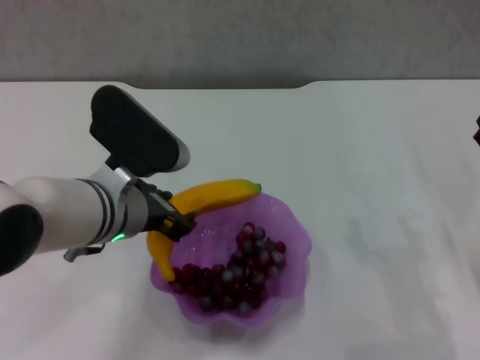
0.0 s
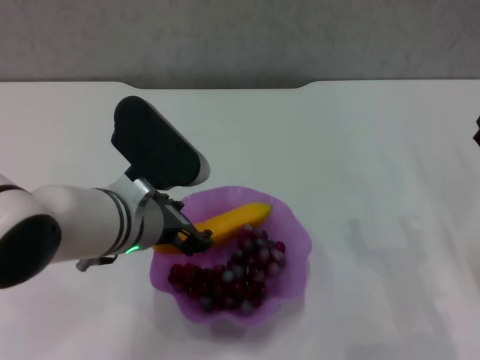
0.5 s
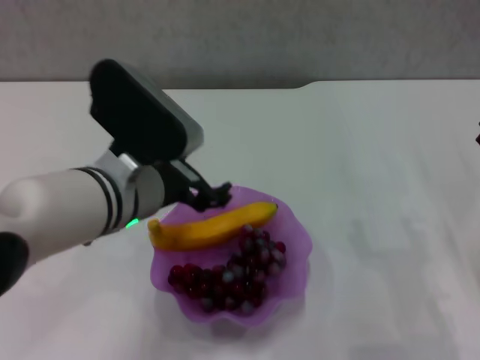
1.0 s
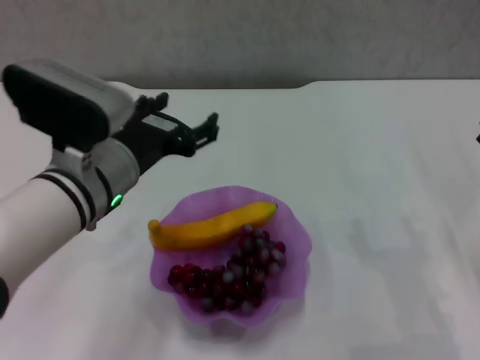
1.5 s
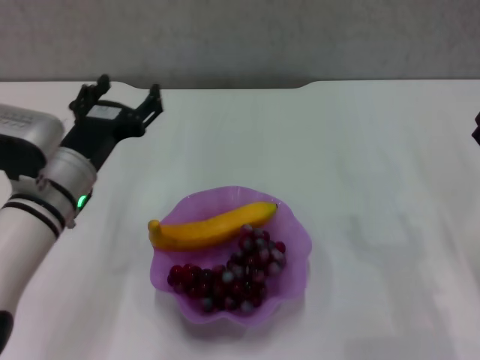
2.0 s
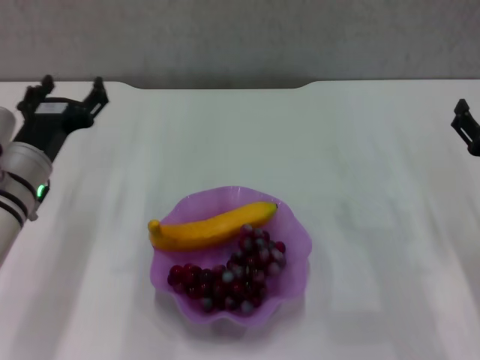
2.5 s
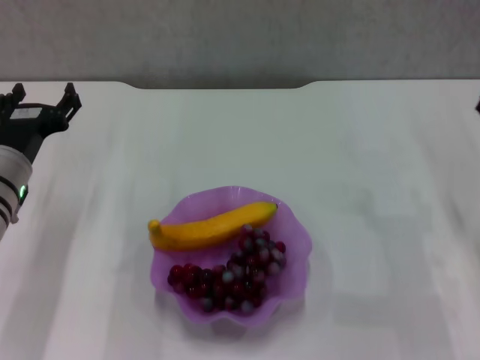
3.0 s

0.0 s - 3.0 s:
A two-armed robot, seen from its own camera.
0.0 s - 1.5 s: The left gripper opens.
1.5 s - 3.0 s: The left gripper shifts about 15 cm to the left and downward. Meanwhile the right gripper goes roughly 5 cm forward.

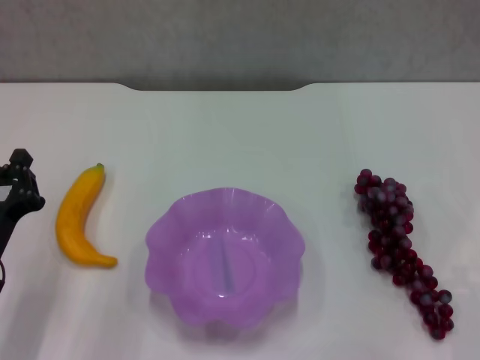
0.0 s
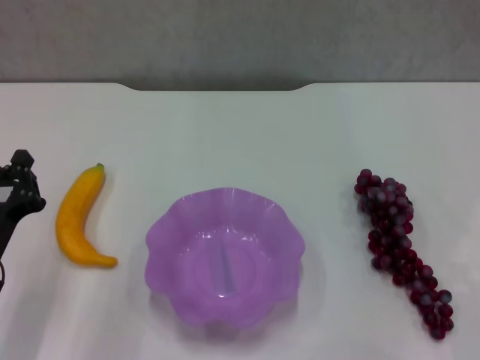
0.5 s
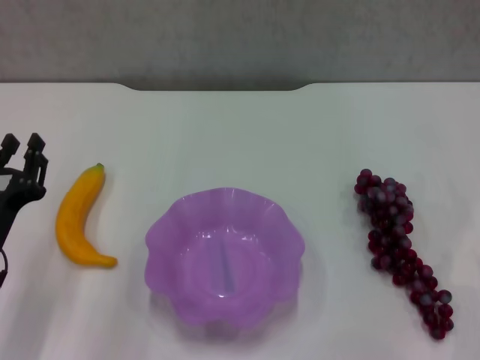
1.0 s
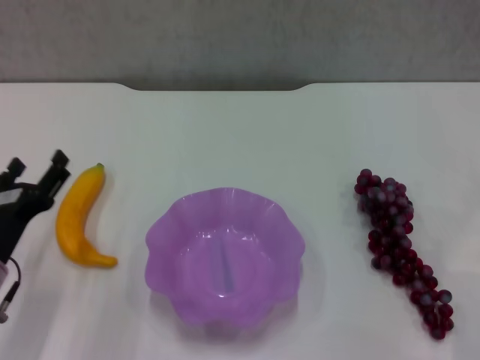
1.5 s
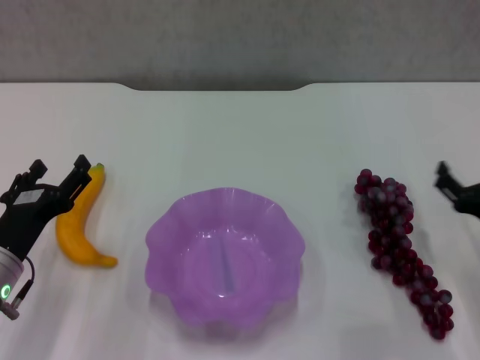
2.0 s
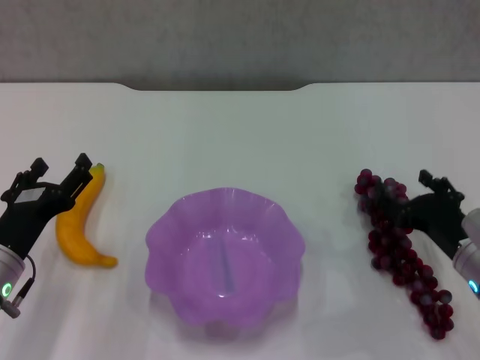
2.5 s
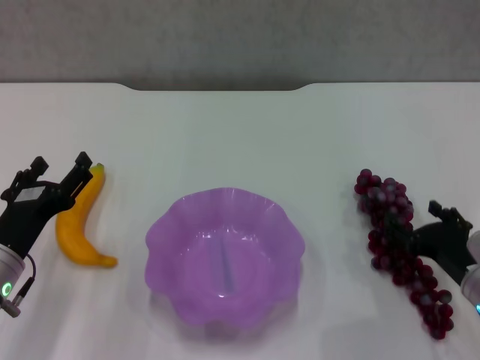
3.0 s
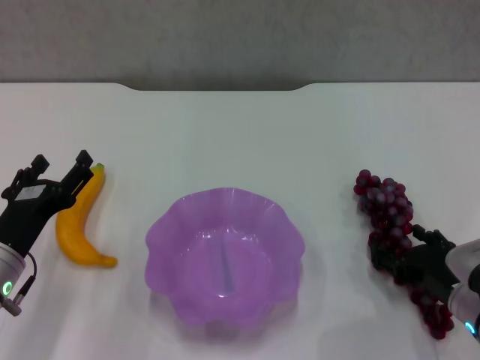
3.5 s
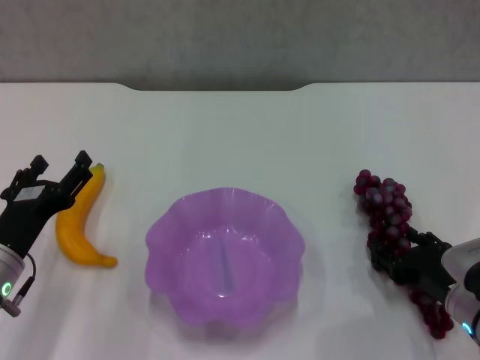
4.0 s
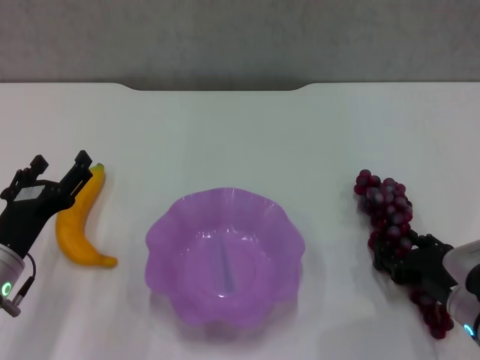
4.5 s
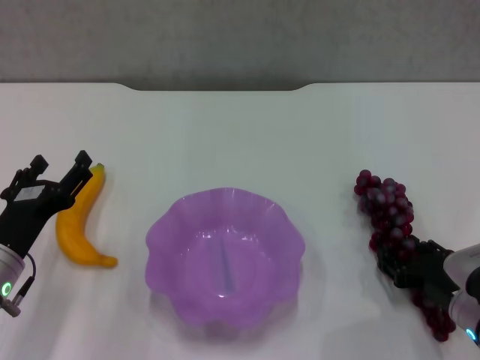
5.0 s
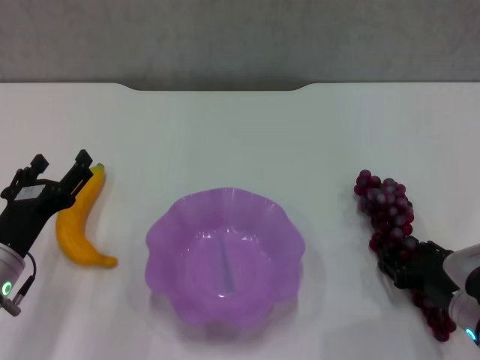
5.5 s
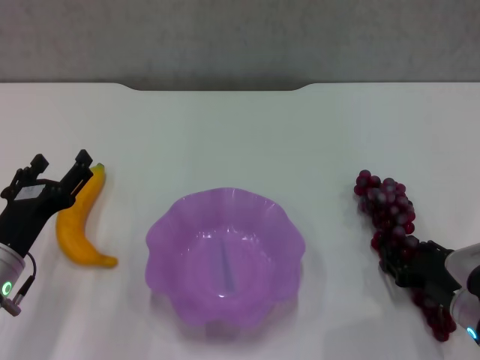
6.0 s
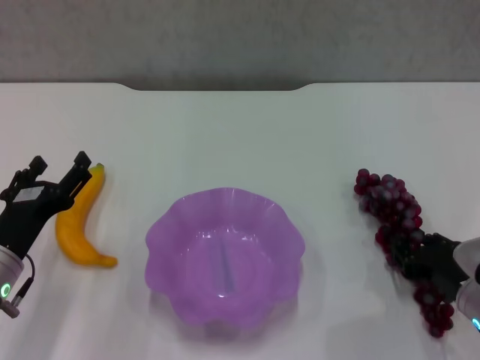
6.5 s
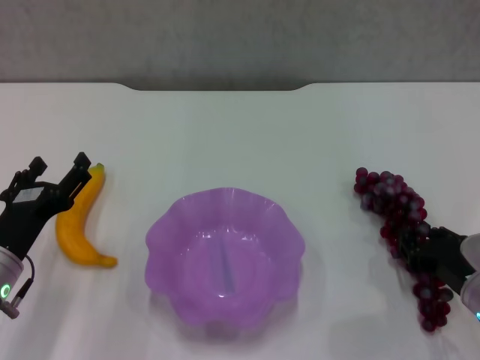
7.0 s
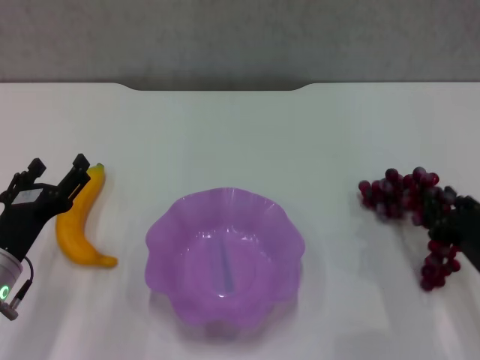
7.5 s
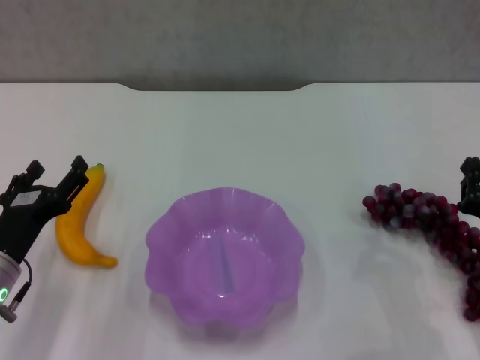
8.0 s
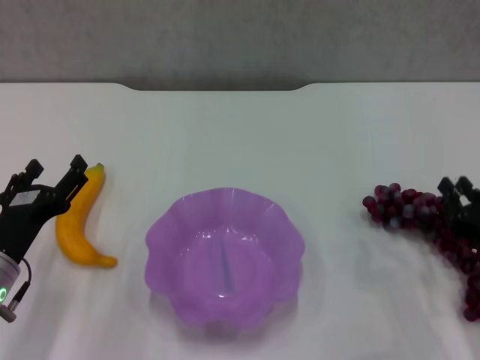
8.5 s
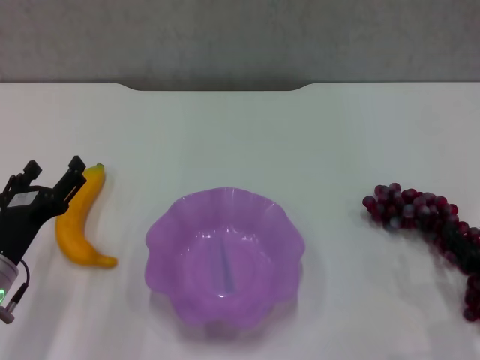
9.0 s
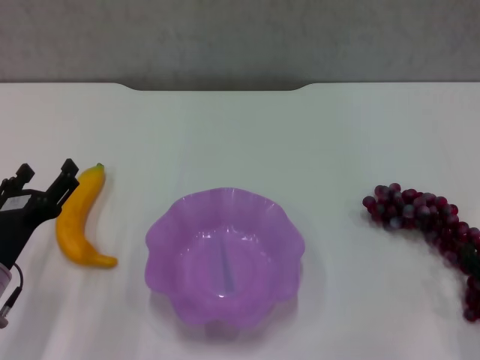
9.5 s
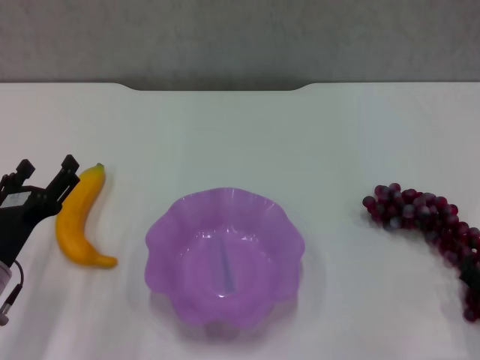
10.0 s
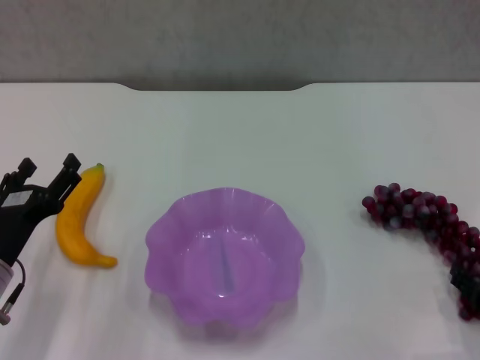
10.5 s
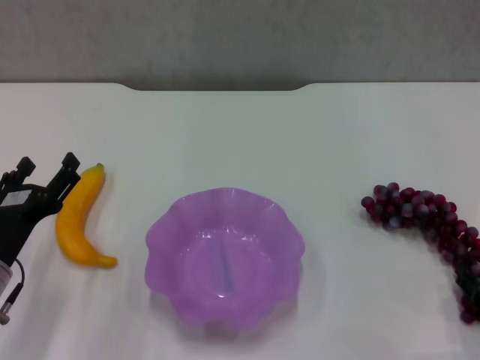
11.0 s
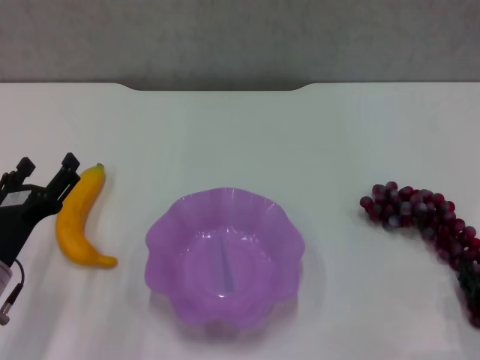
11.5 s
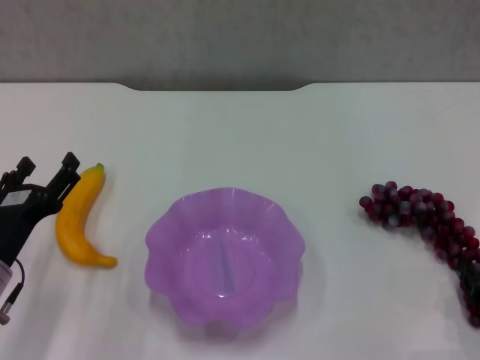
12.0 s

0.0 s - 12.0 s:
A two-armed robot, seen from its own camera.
0.0 s - 2.0 s: The right gripper heads forward, covering approximately 5 cm, and opens, while the left gripper opens.
2.0 s - 4.0 s: The right gripper shifts by some 5 cm.
4.0 s - 6.0 s: Neither gripper changes place.
6.0 s - 8.0 s: The right gripper moves approximately 5 cm, and closes up.
8.0 s - 10.0 s: The right gripper heads downward, covering about 5 cm, and opens its fingers.
10.0 s - 12.0 s: The right gripper closes.

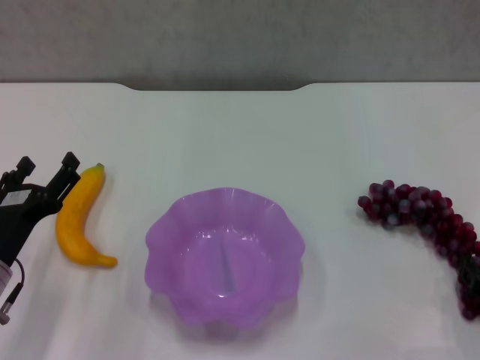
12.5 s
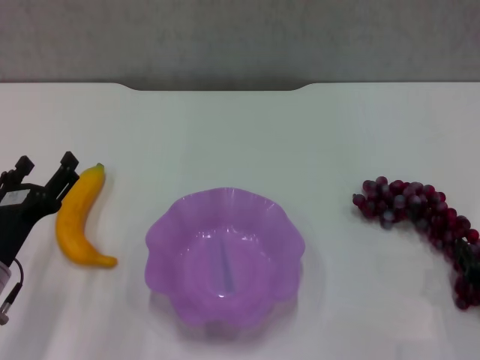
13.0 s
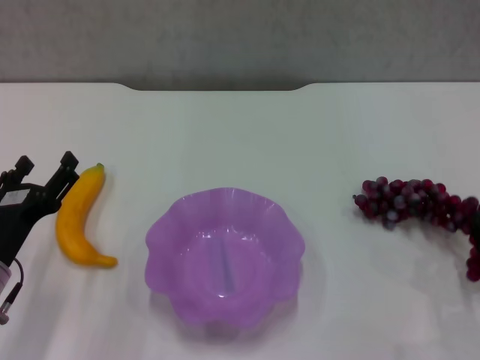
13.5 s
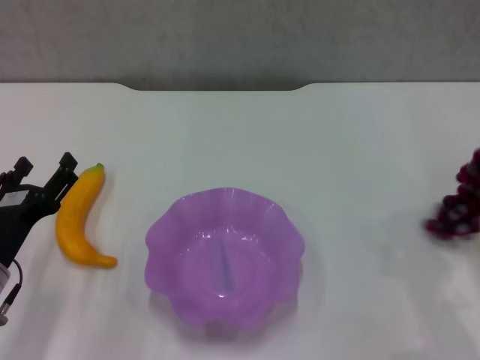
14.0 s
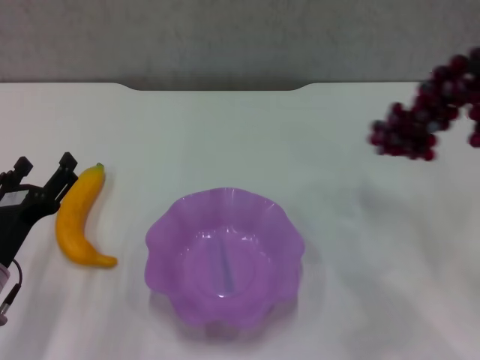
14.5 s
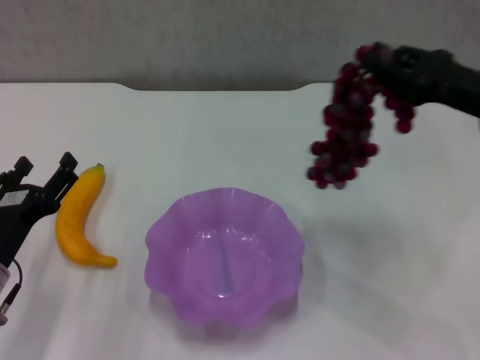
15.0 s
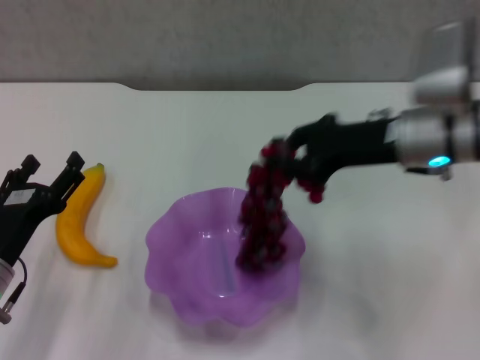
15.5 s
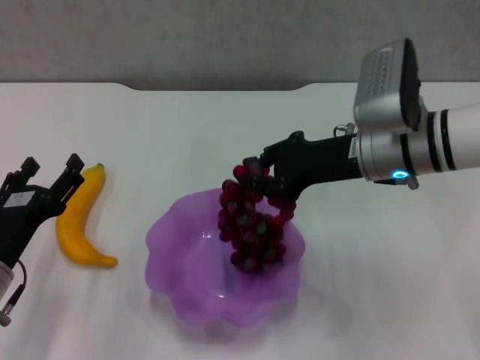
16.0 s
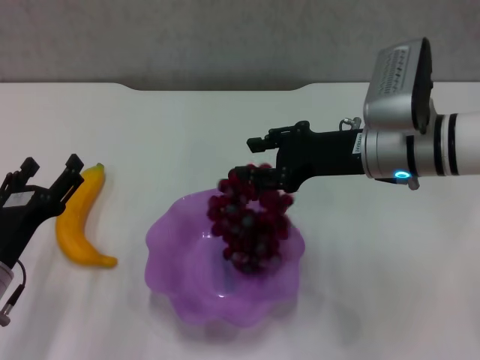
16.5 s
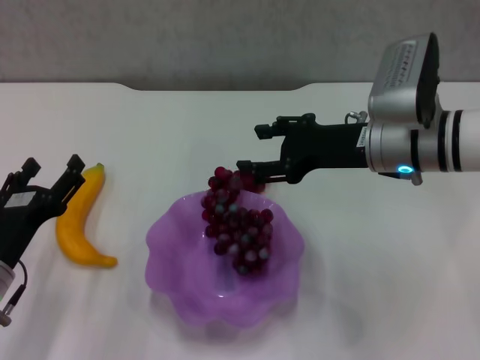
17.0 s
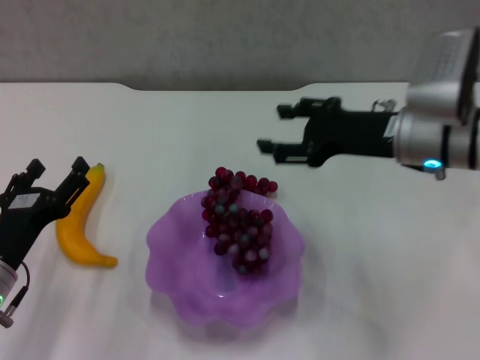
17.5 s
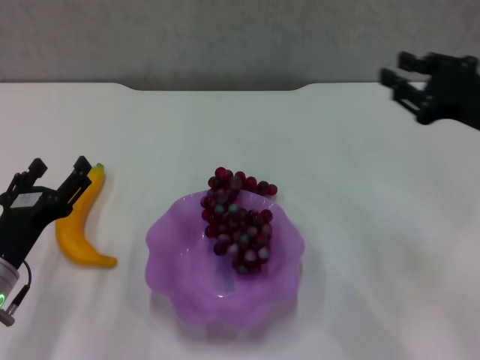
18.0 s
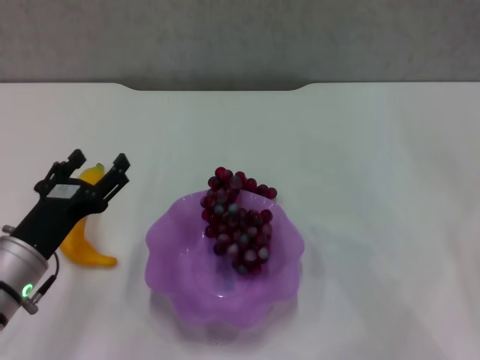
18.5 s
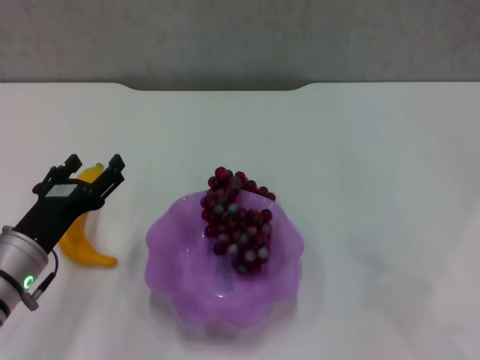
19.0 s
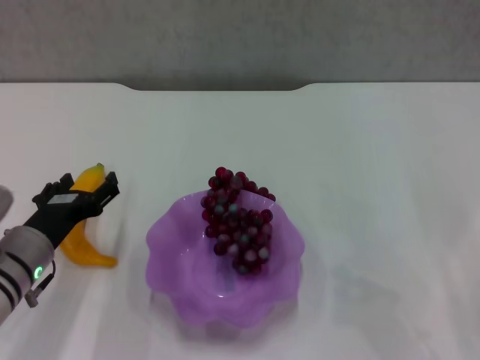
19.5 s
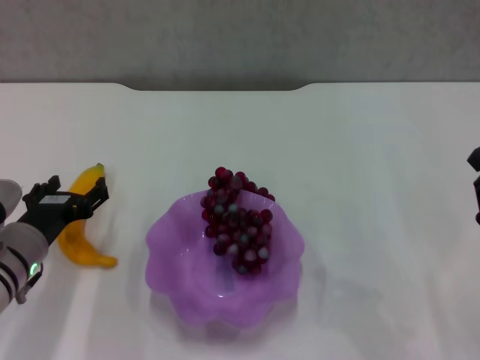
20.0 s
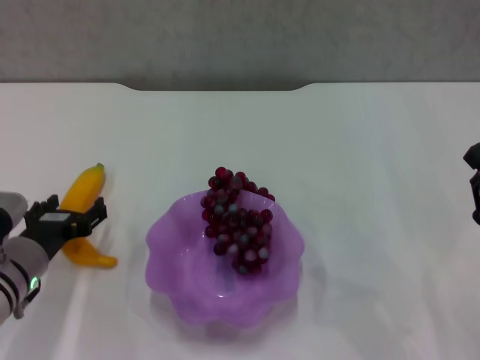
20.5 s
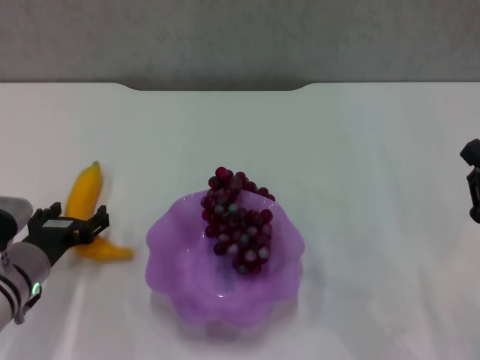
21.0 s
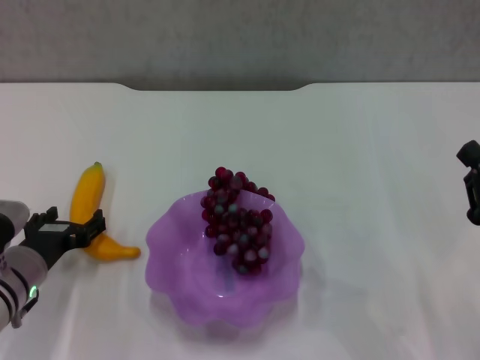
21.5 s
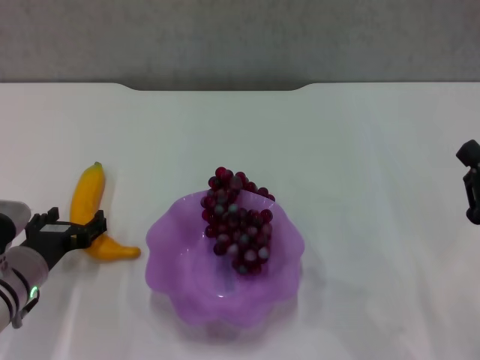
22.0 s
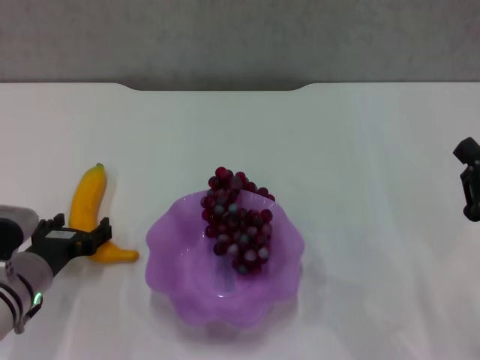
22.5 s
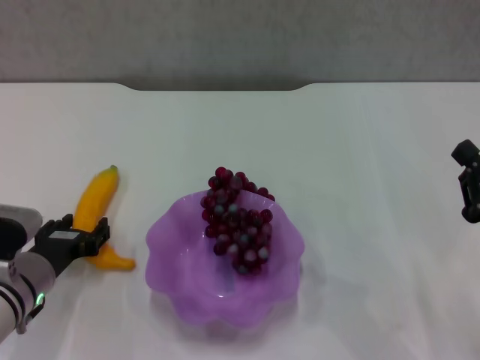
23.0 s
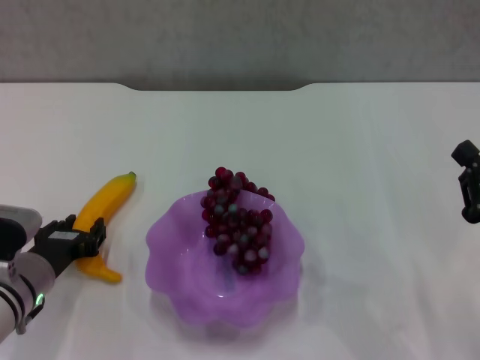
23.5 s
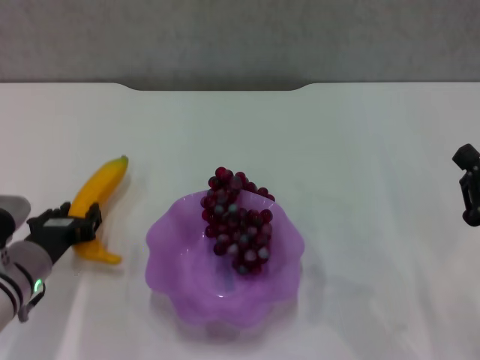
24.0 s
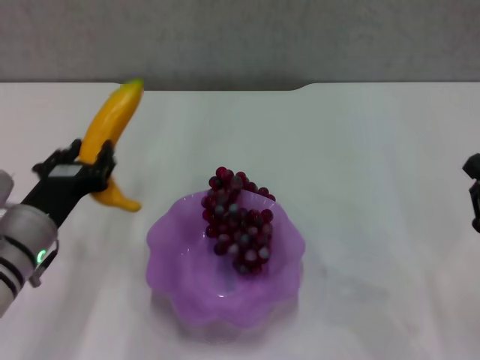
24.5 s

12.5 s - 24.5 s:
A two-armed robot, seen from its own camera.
Step, 12.5 s - 17.0 s: Place the grape in the purple plate with right gripper.
Step, 17.5 s - 23.5 s: Grasp the banana with left gripper.
12.5 s - 14.5 s: The right gripper moves upward and forward, approximately 15 cm.
14.5 s - 16.5 s: The right gripper goes approximately 20 cm to the left and forward.
16.5 s - 18.5 s: The right gripper moves to the right and backward, about 20 cm, and closes up.
20.5 s - 22.5 s: Both grippers stay put.
22.5 s - 24.5 s: The left gripper travels upward by approximately 5 cm.
